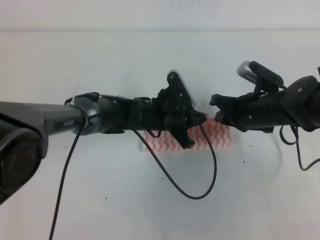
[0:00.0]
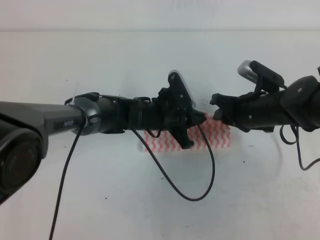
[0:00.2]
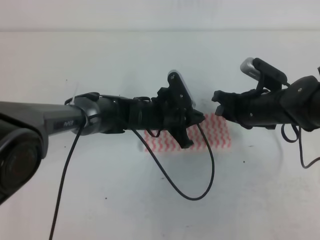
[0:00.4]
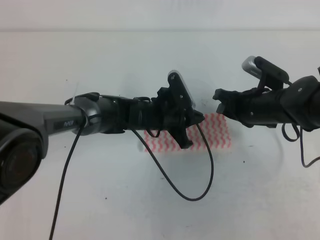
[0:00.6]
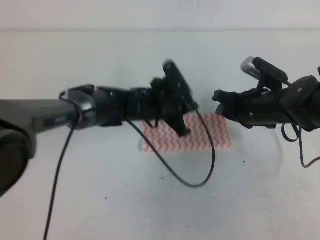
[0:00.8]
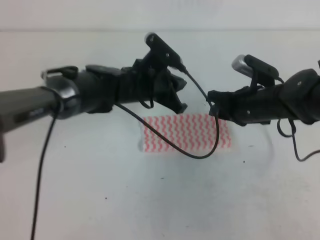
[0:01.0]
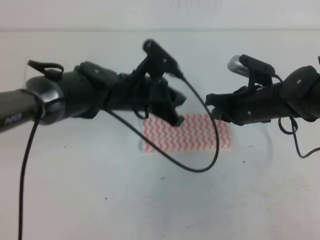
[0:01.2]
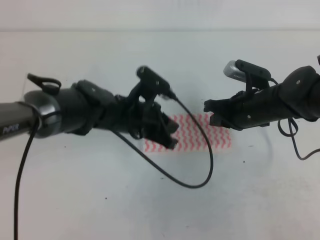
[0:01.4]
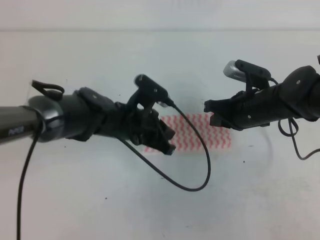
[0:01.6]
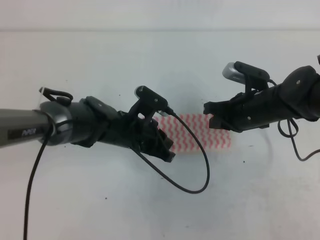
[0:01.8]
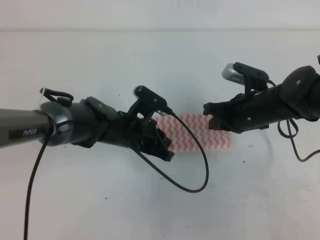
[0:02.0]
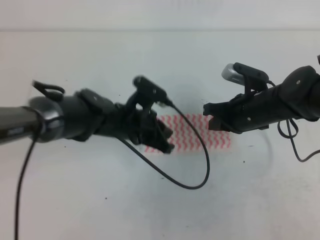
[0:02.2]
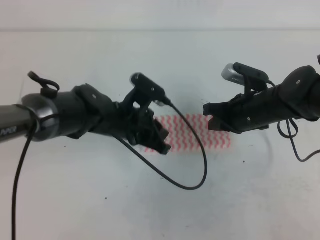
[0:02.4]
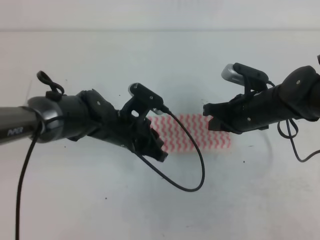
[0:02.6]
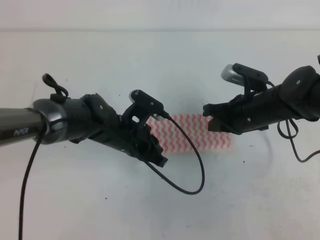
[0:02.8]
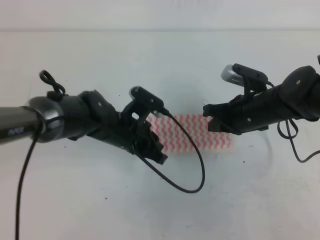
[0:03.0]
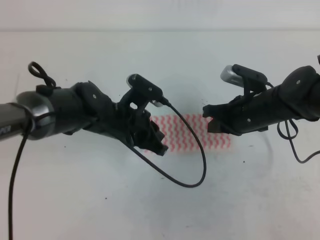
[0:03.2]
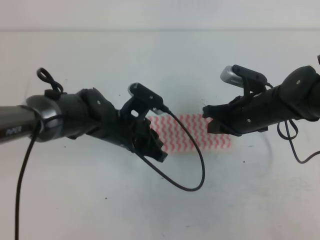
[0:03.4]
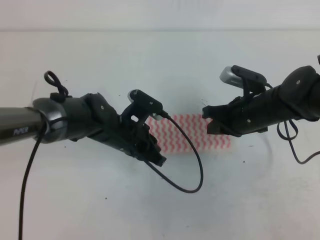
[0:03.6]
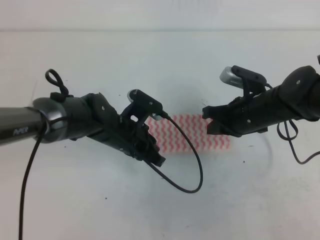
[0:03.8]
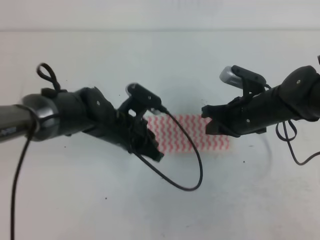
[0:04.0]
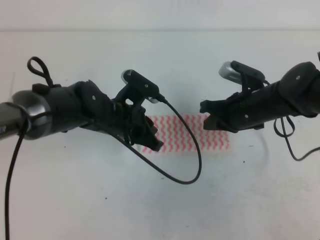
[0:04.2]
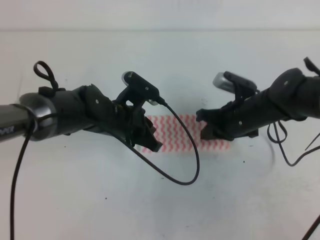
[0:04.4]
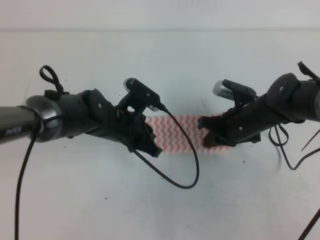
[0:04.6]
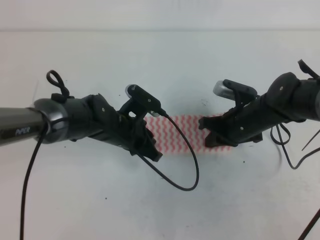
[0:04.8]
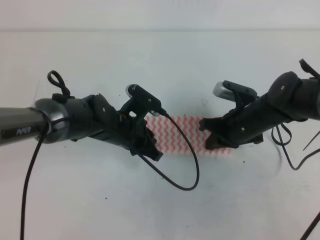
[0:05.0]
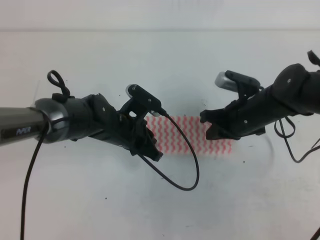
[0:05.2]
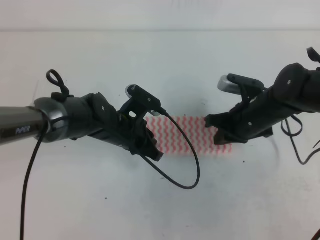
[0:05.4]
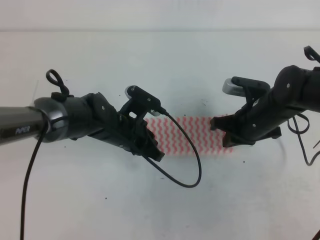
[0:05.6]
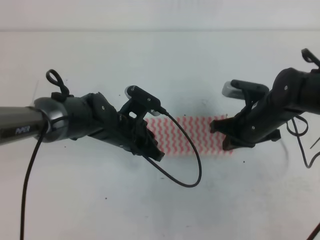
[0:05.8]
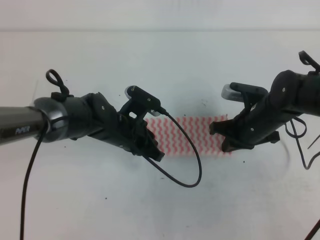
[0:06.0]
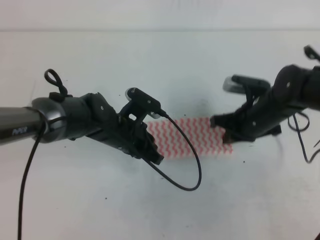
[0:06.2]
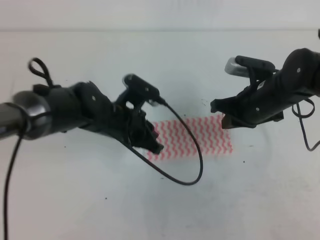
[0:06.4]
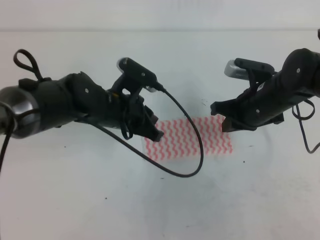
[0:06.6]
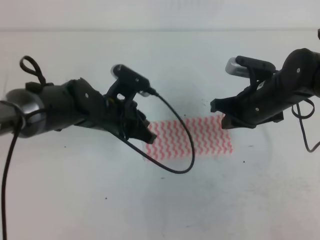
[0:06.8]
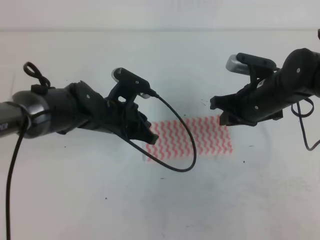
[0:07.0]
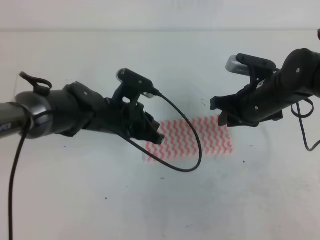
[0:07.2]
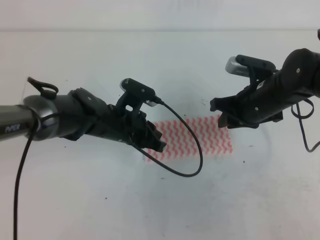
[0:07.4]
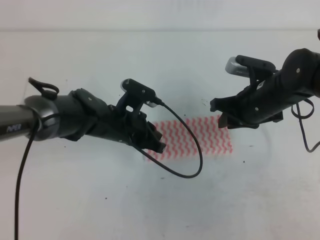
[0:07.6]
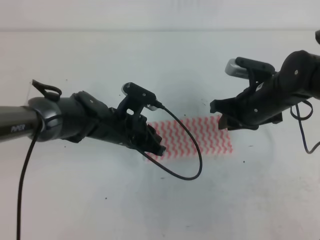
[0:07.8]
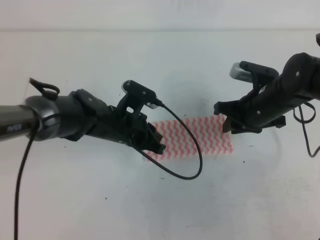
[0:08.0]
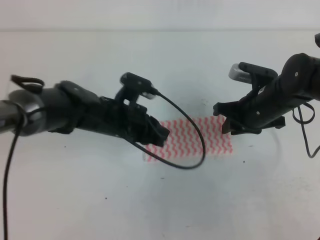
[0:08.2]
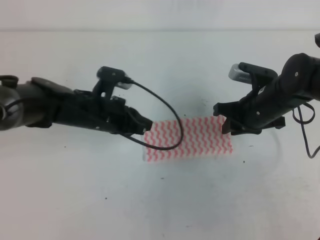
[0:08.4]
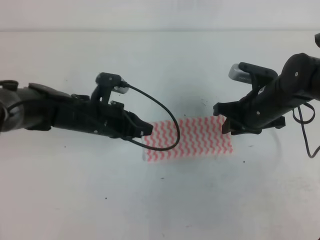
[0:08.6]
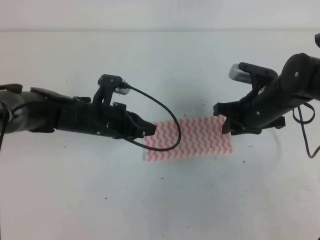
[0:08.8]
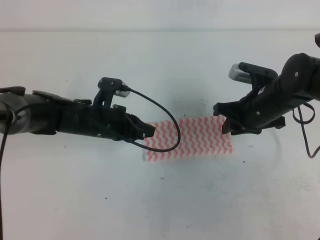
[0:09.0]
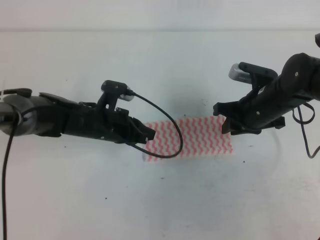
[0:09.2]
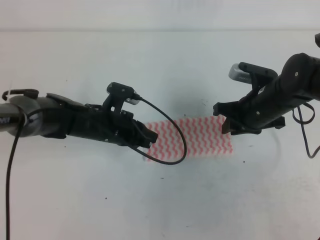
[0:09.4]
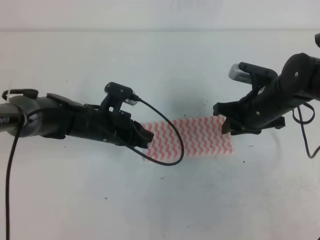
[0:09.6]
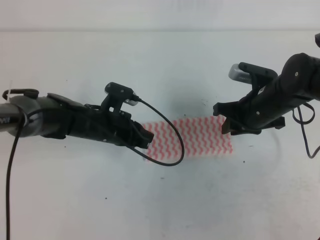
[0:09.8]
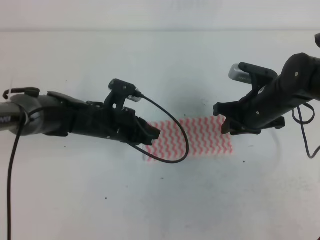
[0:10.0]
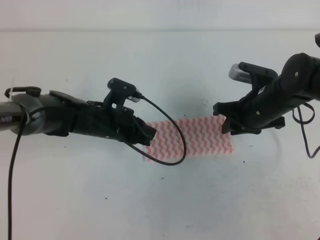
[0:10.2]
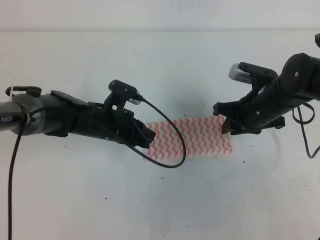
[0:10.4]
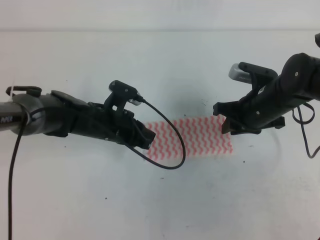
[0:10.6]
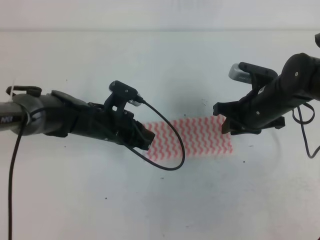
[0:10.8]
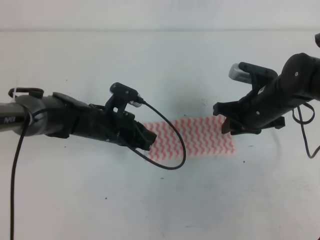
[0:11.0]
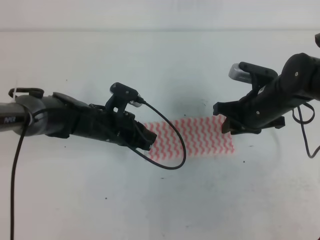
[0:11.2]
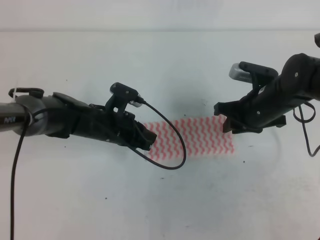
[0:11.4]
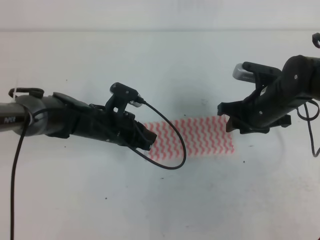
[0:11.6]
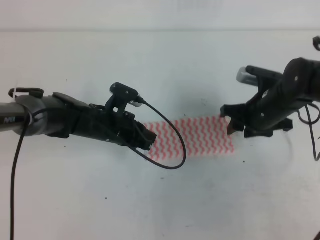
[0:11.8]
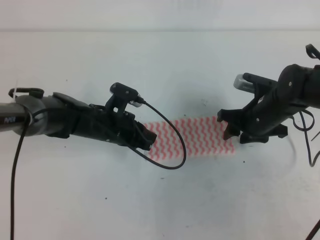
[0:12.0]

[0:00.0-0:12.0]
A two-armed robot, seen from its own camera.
0:00.0 to 0:01.6: The left gripper changes place by roughly 10 cm, while the right gripper opens, then closes again.
0:01.6 to 0:06.0: The grippers stay close to where they were, moving slightly.
0:06.0 to 0:07.6: The right gripper opens.
0:09.0 to 0:10.4: There are only small adjustments of the grippers.
0:10.4 to 0:12.0: The right gripper opens up.

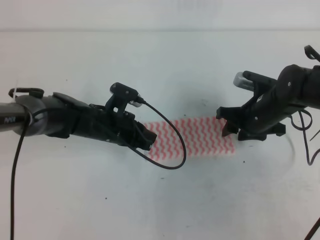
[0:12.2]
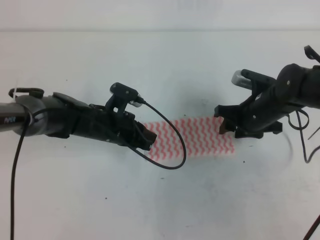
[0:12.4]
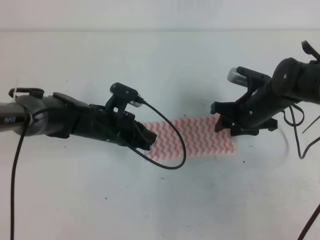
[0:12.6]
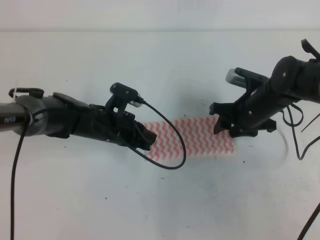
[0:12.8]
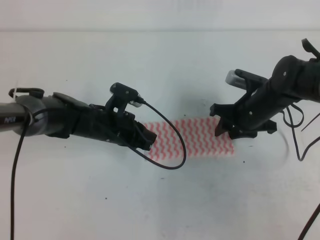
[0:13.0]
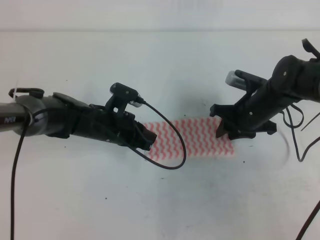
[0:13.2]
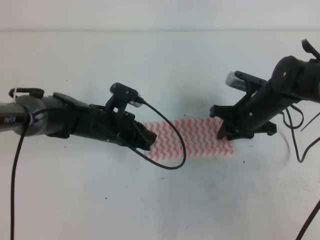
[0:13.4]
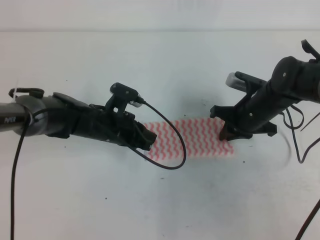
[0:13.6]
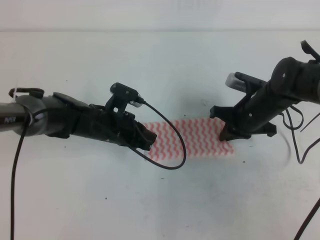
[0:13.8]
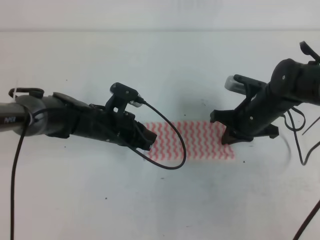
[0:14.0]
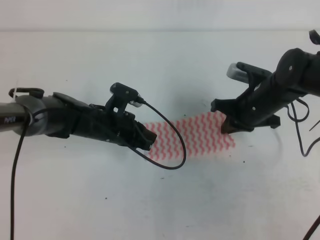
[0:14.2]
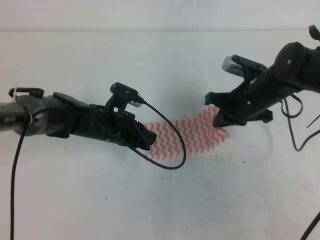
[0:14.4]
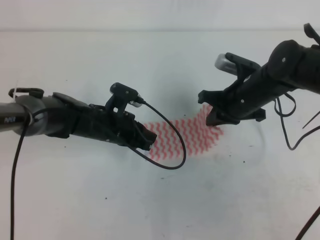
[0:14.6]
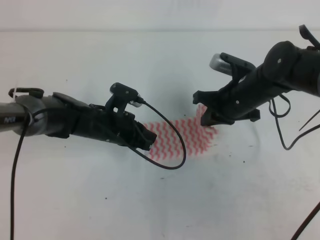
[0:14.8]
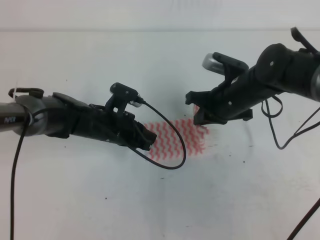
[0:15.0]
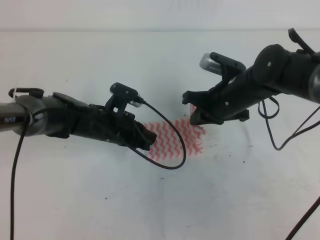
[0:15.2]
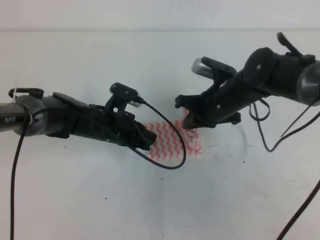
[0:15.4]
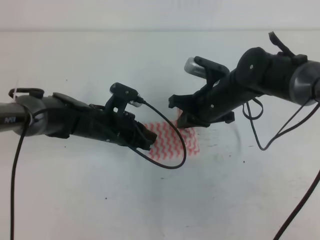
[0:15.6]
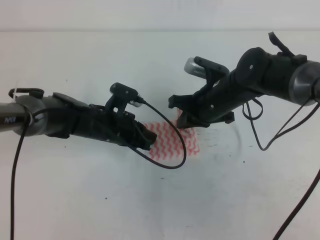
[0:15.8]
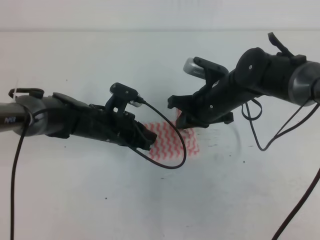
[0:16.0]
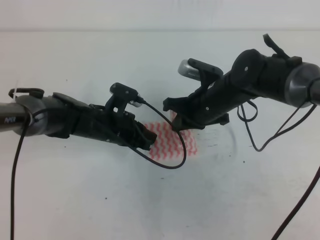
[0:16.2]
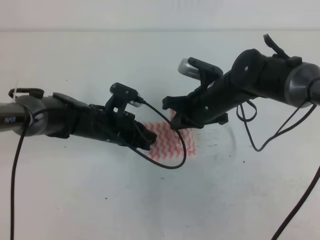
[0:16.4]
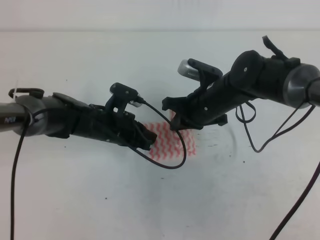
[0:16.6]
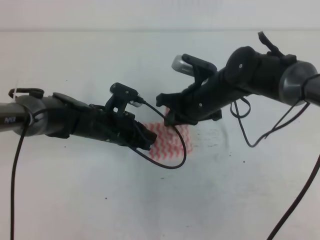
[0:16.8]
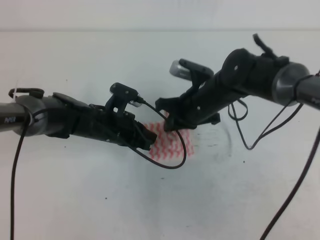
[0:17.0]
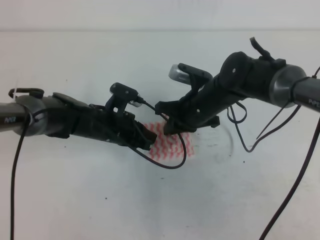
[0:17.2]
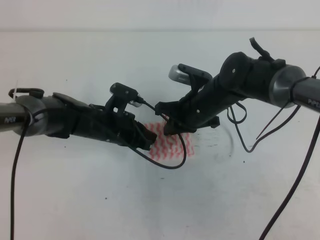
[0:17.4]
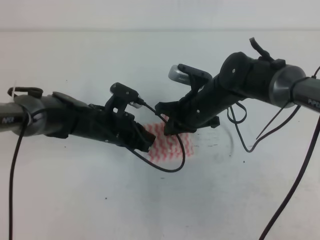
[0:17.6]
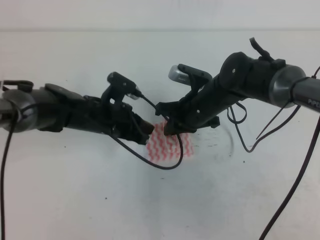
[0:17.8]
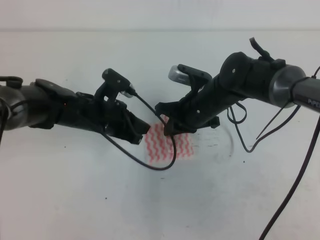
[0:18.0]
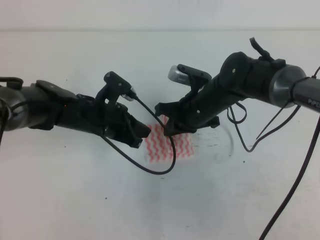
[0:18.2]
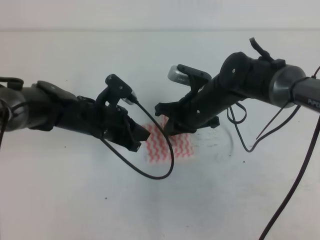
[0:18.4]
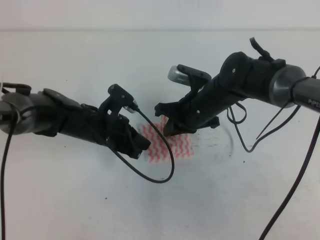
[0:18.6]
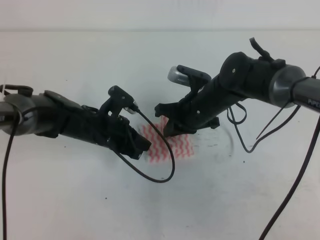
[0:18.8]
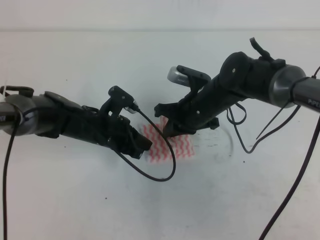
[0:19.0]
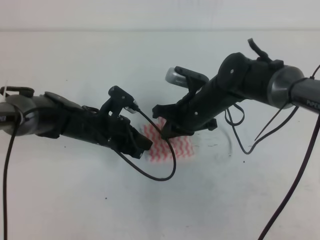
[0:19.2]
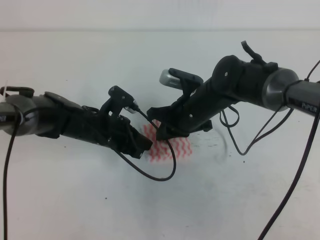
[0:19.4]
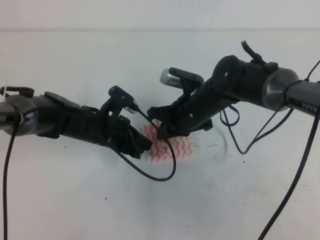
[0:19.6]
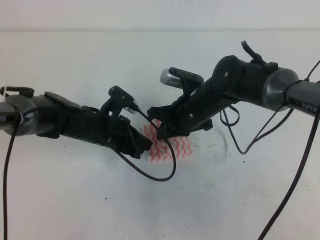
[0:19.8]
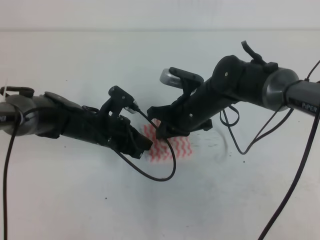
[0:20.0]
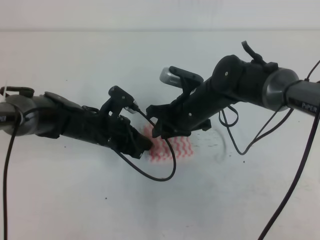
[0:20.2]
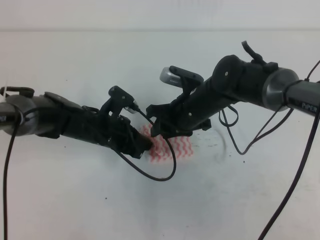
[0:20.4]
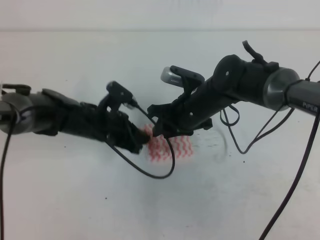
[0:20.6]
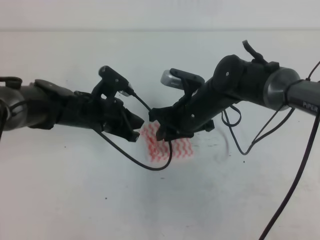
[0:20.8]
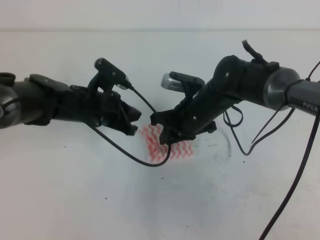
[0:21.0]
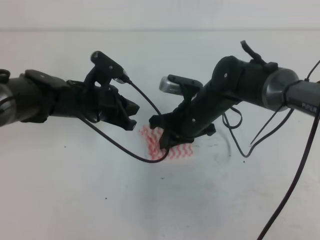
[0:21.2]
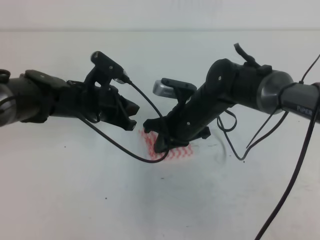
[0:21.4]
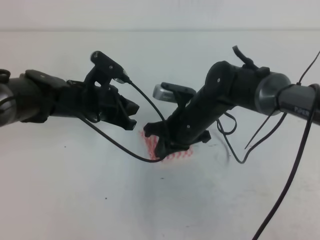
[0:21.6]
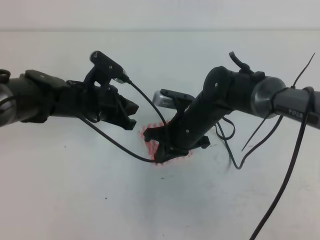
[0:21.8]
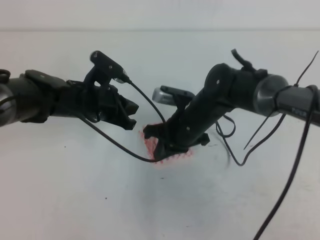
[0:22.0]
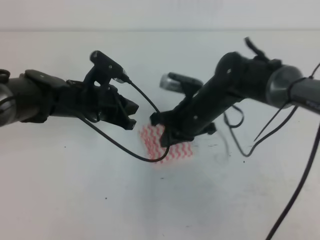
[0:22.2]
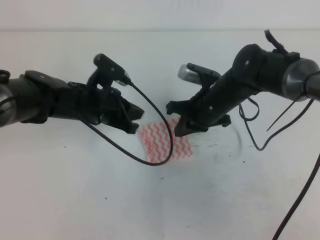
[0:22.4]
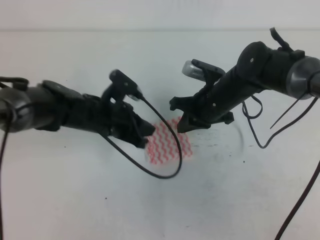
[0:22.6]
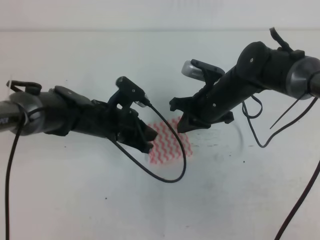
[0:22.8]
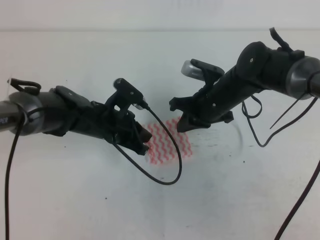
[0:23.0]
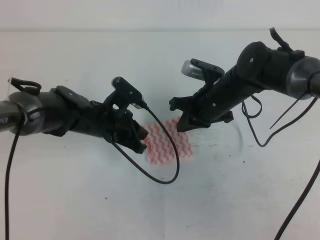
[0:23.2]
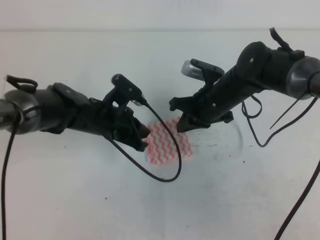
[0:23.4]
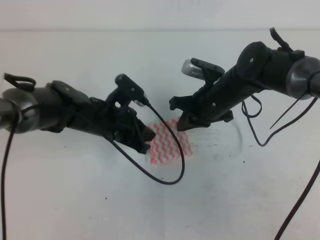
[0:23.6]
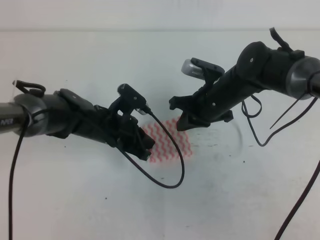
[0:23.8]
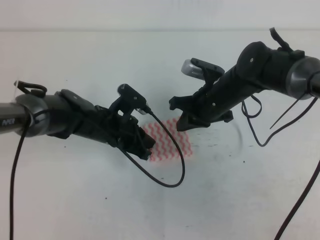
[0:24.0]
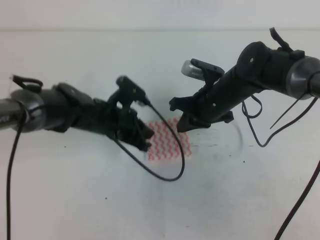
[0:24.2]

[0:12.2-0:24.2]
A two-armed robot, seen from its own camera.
0:12.2 to 0:13.8: The right gripper closes up.
0:13.8 to 0:15.2: The right gripper goes about 10 cm upward and to the left.
0:15.2 to 0:18.2: The grippers move only a little.
0:18.2 to 0:19.8: The grippers move only a little.
0:19.8 to 0:21.2: The right gripper opens, then closes again; the left gripper travels upward by approximately 5 cm.
0:22.6 to 0:24.2: The grippers move only a little.
